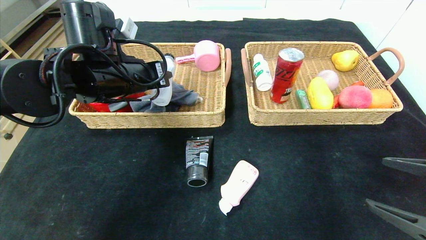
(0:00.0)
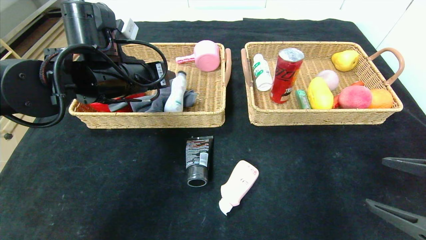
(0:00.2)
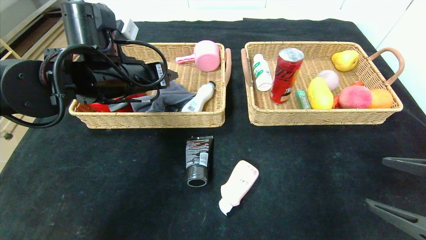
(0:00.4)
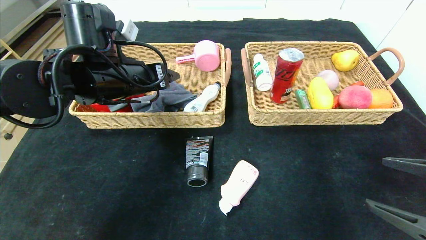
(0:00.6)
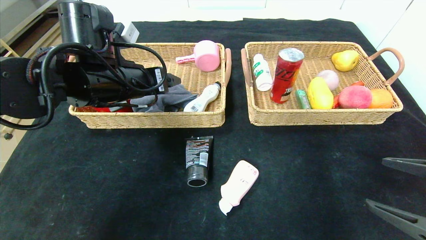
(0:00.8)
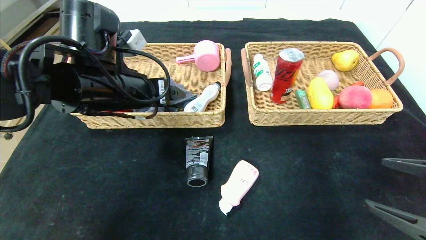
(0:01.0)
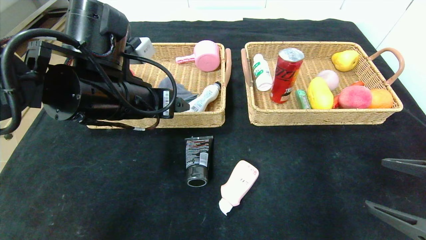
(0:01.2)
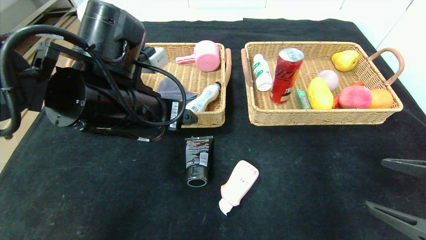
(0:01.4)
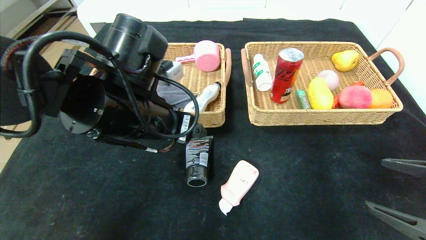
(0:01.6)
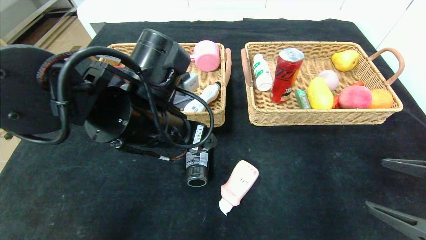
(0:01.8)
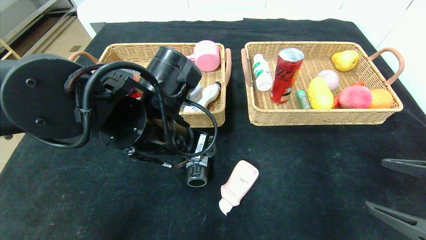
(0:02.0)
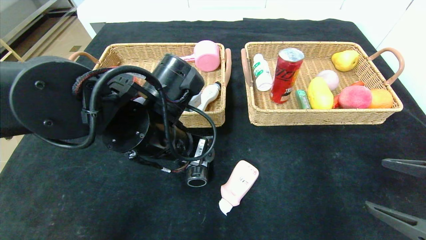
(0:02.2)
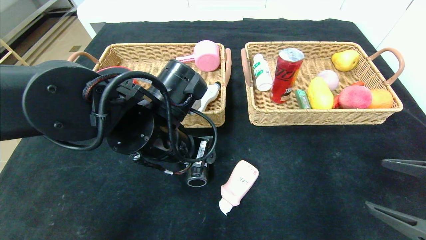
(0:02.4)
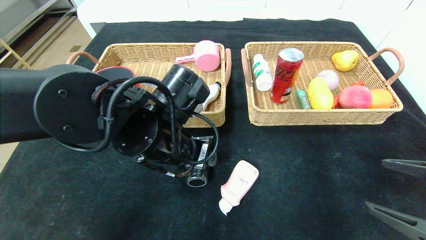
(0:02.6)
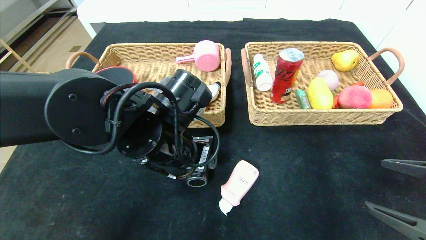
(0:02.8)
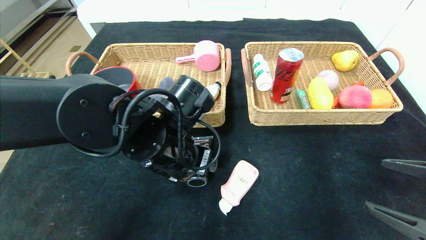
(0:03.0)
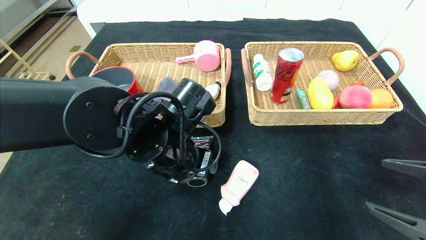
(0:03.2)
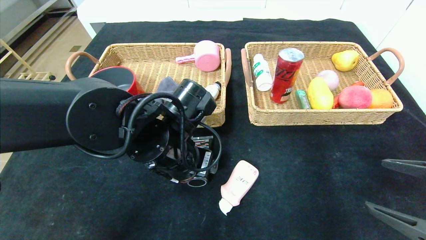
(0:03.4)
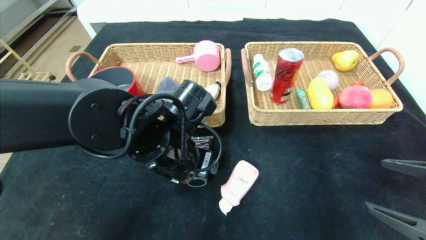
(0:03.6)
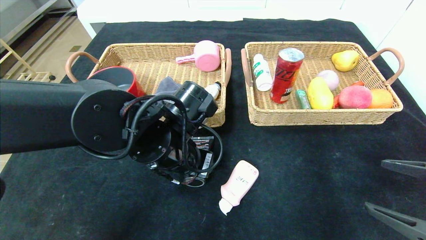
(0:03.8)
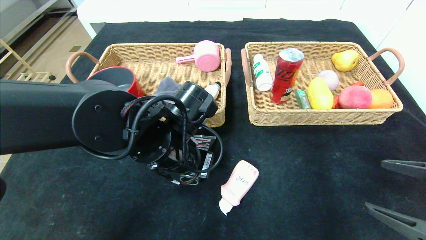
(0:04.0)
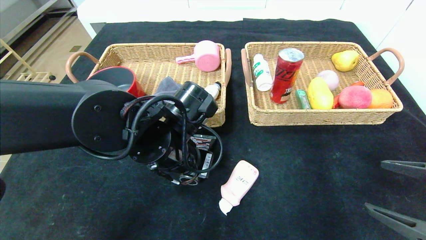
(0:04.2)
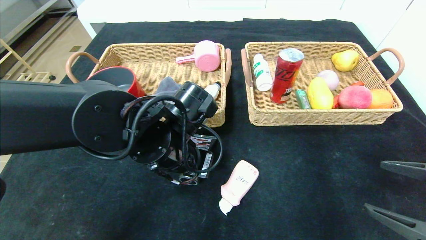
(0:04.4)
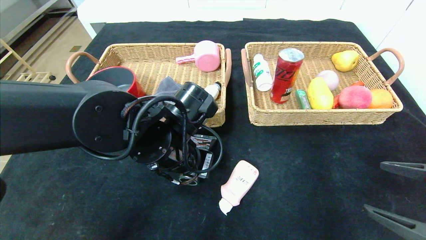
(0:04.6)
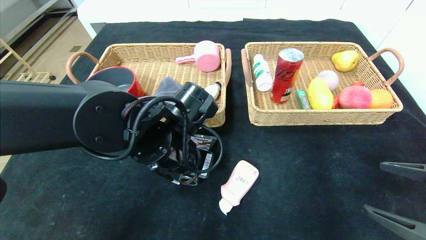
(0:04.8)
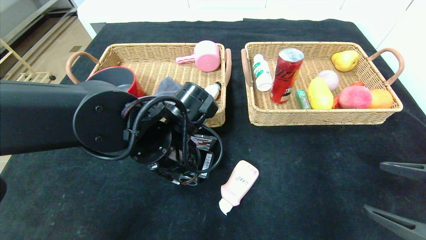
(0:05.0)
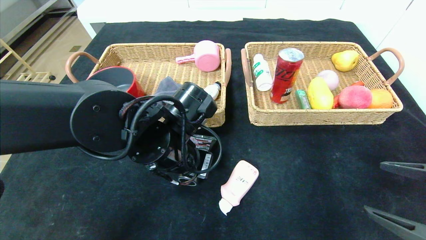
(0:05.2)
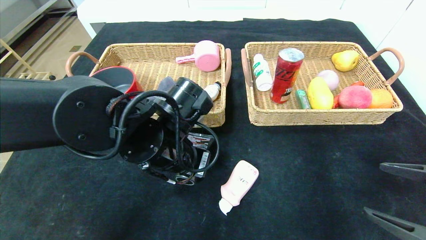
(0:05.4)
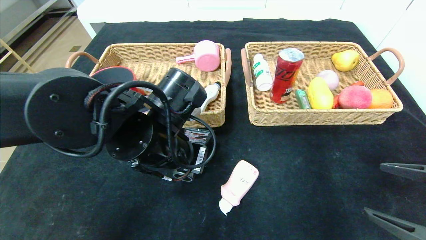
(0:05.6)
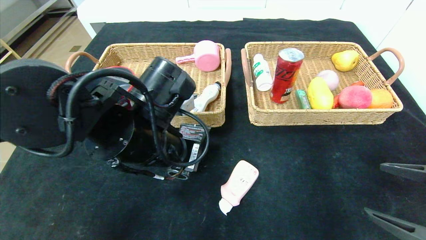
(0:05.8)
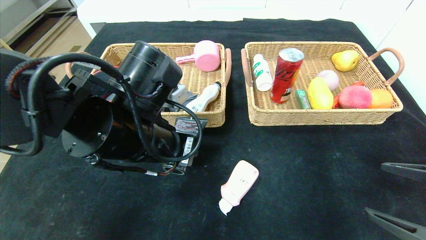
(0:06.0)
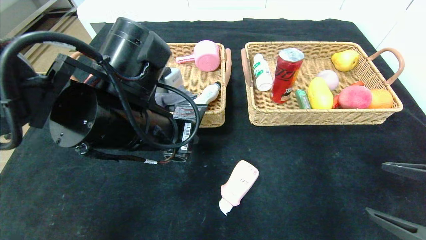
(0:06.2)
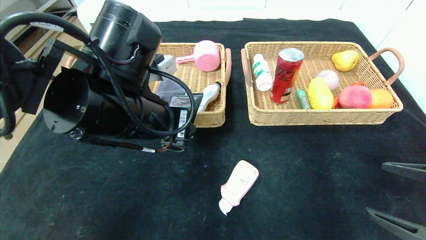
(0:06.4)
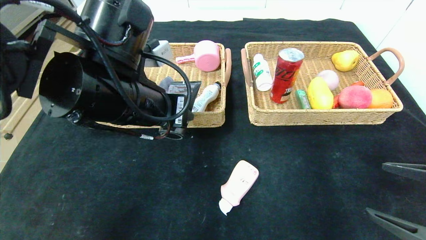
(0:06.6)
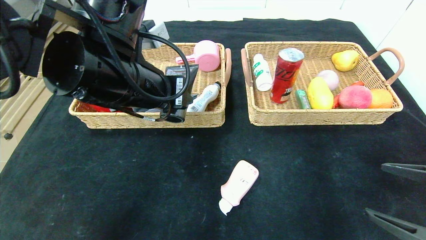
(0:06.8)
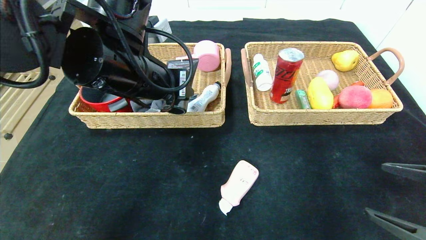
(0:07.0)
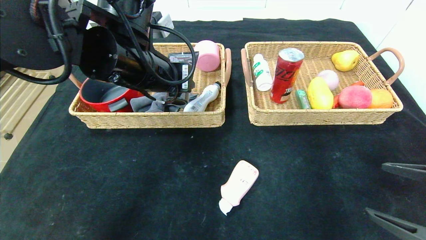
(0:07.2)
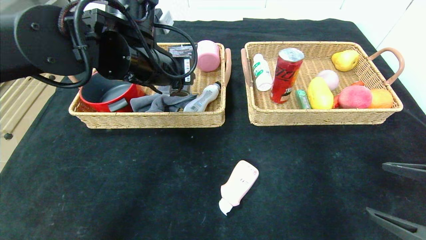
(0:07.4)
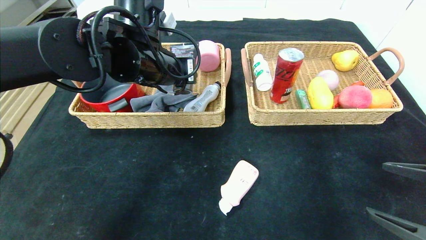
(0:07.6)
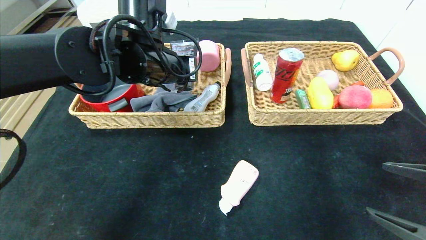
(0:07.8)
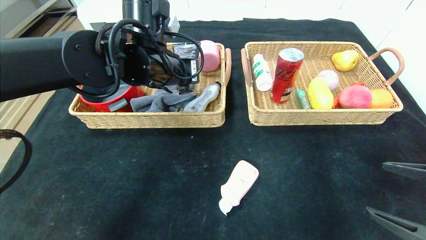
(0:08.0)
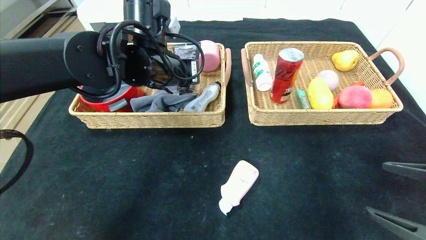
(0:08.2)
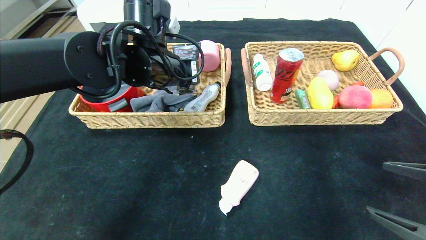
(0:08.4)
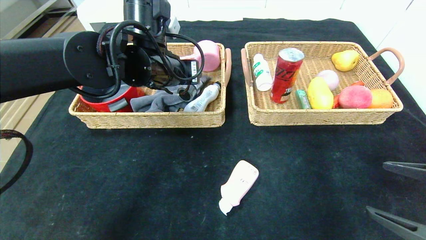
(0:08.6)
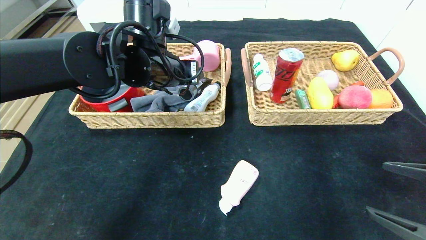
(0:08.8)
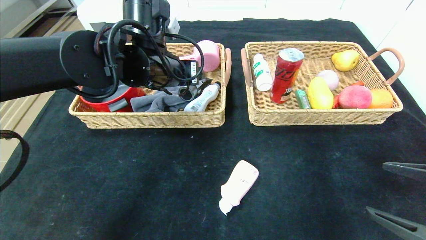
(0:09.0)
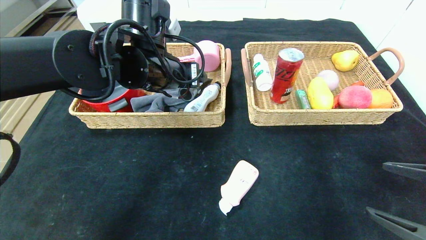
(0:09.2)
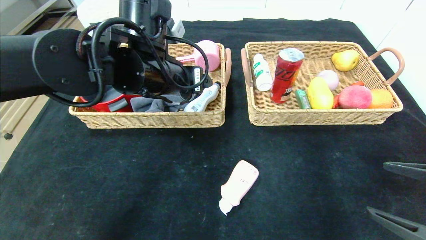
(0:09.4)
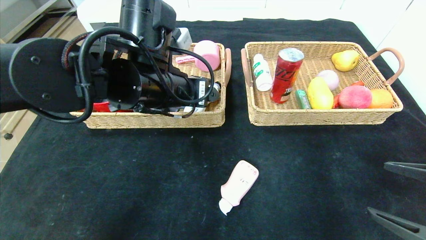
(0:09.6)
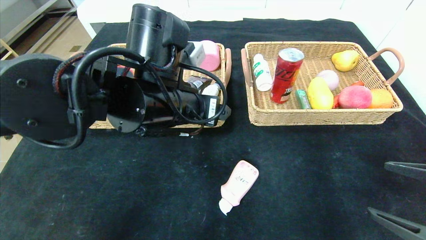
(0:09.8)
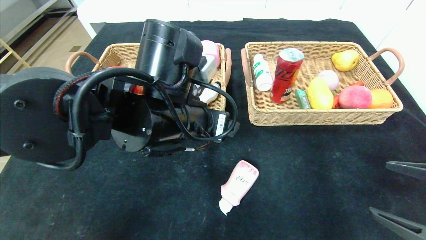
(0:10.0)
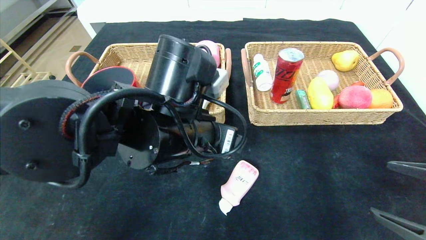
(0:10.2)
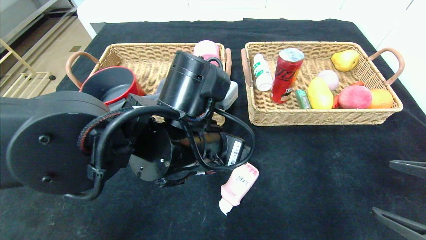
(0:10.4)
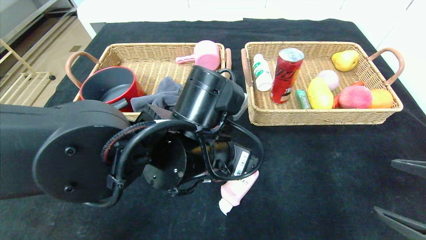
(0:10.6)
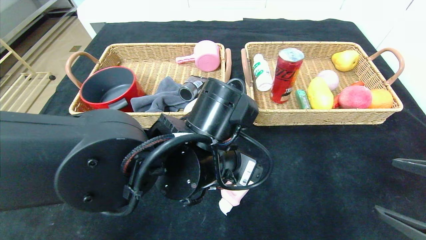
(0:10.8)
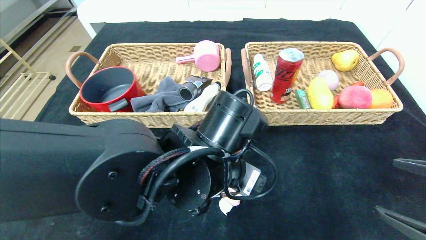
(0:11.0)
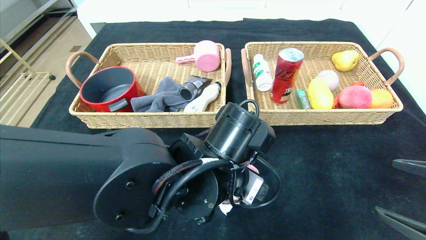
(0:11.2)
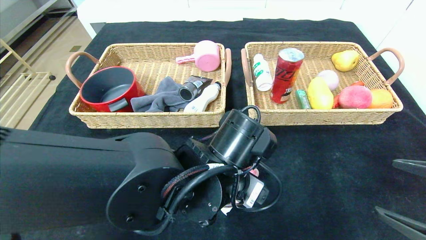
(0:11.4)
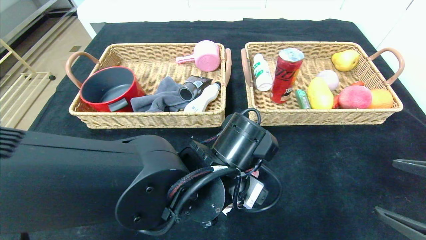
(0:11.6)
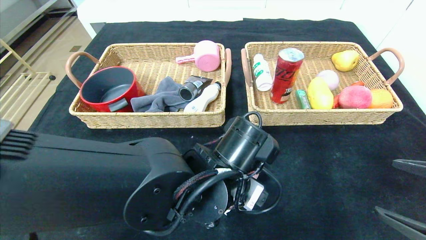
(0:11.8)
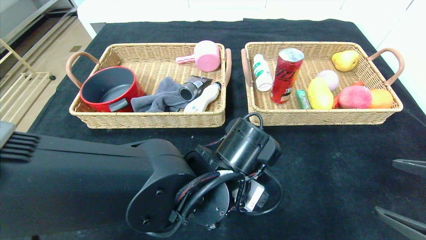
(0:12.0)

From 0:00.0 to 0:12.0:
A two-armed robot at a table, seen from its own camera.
Step, from 0:00.6 to 0:08.8: Grasp the soft cleanser and put it in the left basket.
From 0:00.0 to 0:01.6: The left gripper goes about 10 cm backward and to the right, and opens its fingers.
From 0:01.6 to 0:03.0: The left gripper goes approximately 5 cm downward.
From 0:03.0 to 0:04.4: The left gripper closes up.
From 0:04.4 to 0:06.0: The left gripper moves approximately 5 cm.
From 0:06.0 to 0:07.6: The left gripper travels forward and upward by approximately 15 cm.
From 0:07.6 to 0:09.0: The left gripper opens up.
From 0:09.0 to 0:10.4: The left gripper heads backward, to the right and downward, covering approximately 15 cm.
From 0:10.4 to 0:12.0: The left gripper moves downward, approximately 5 cm.

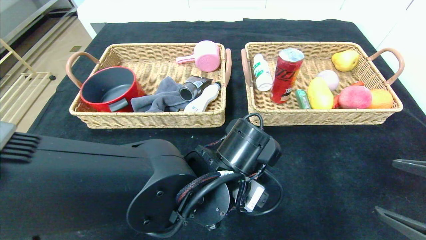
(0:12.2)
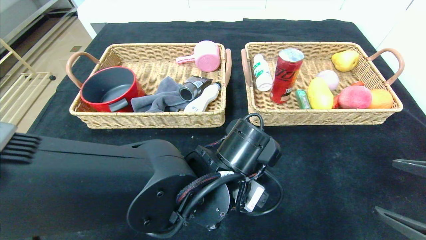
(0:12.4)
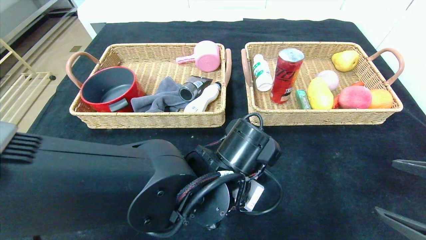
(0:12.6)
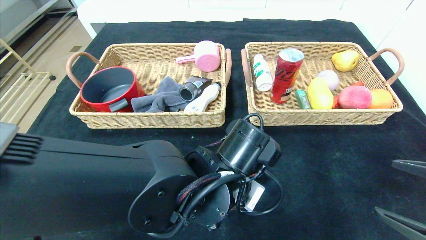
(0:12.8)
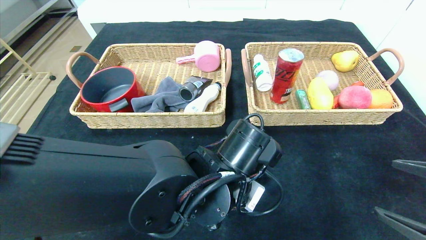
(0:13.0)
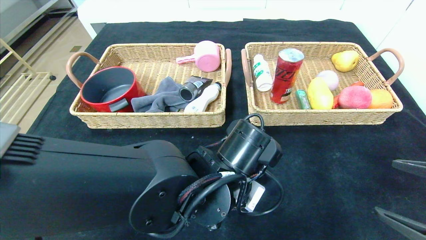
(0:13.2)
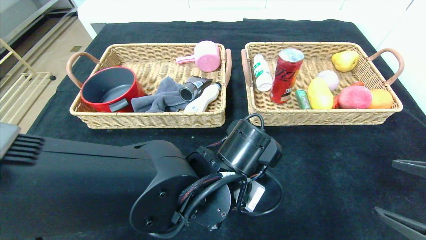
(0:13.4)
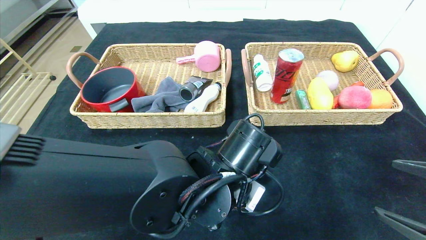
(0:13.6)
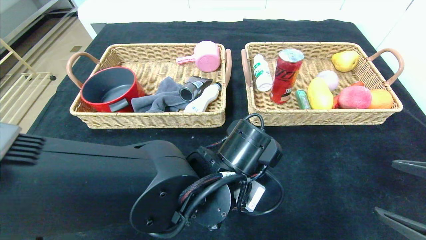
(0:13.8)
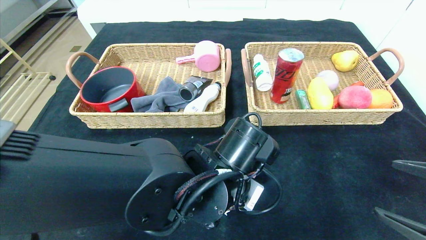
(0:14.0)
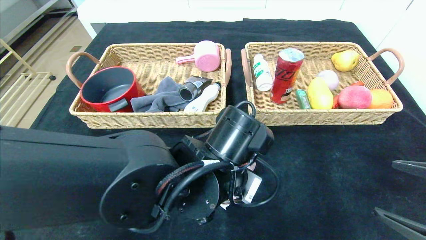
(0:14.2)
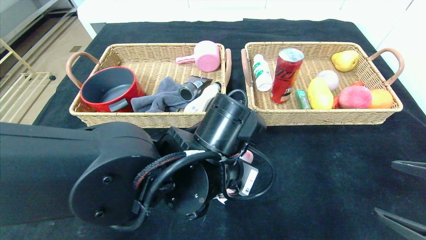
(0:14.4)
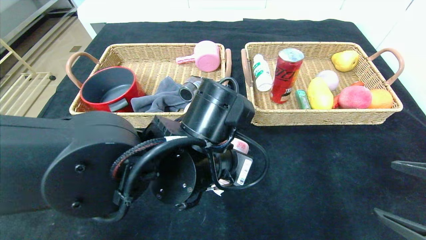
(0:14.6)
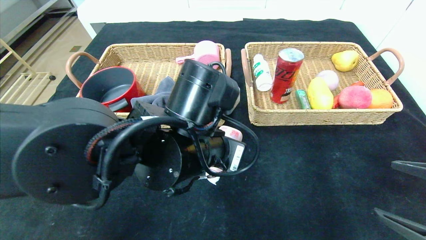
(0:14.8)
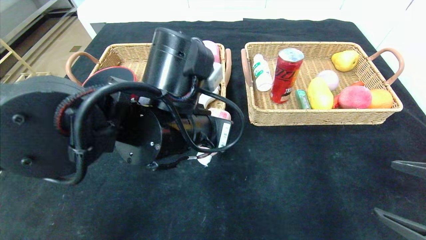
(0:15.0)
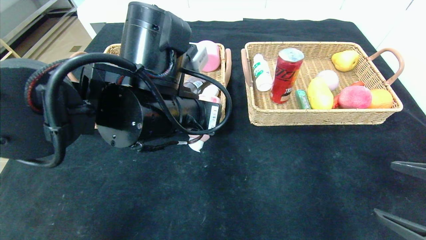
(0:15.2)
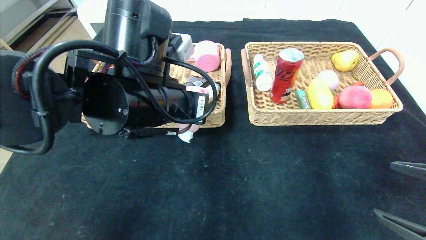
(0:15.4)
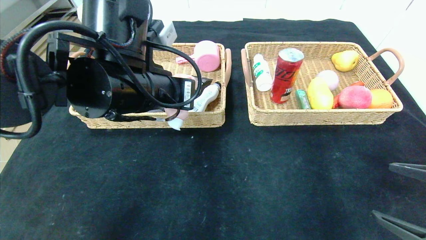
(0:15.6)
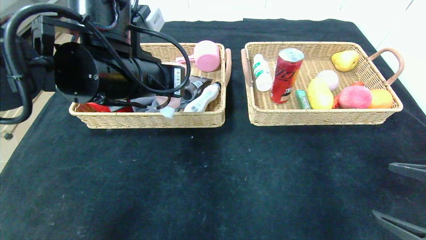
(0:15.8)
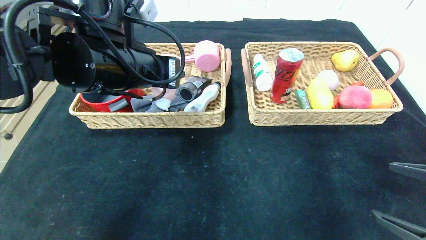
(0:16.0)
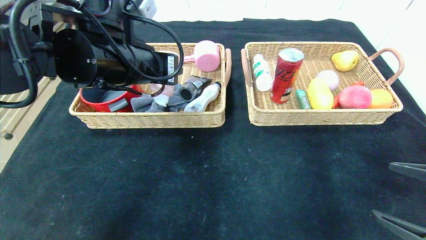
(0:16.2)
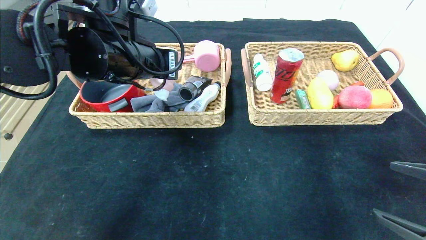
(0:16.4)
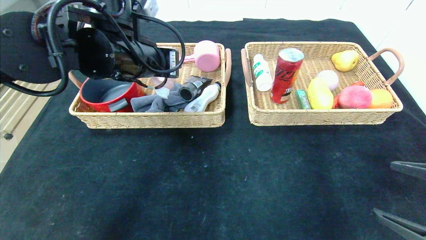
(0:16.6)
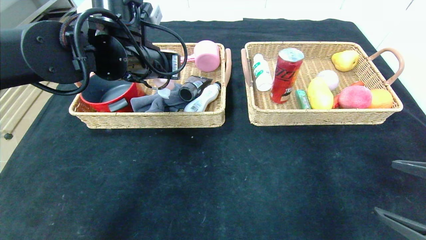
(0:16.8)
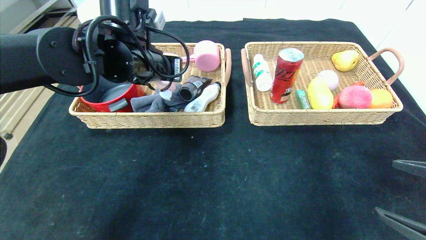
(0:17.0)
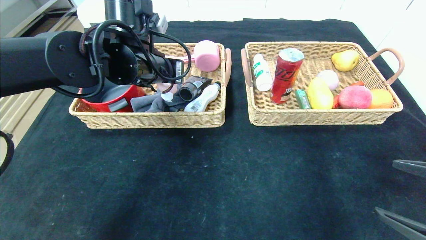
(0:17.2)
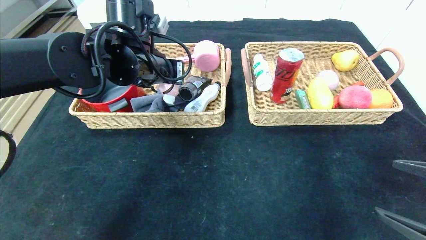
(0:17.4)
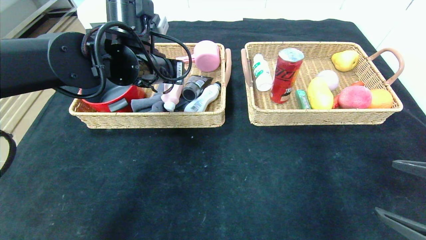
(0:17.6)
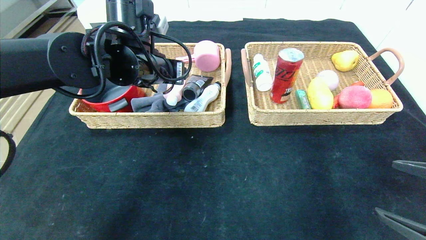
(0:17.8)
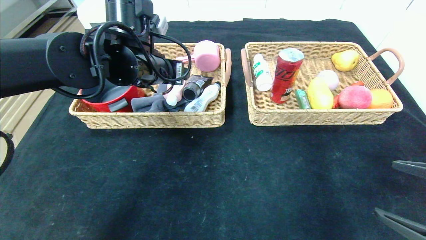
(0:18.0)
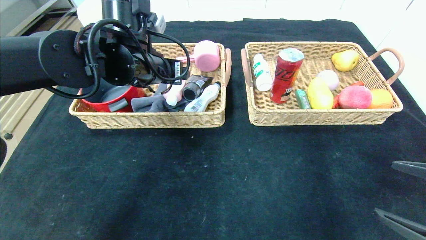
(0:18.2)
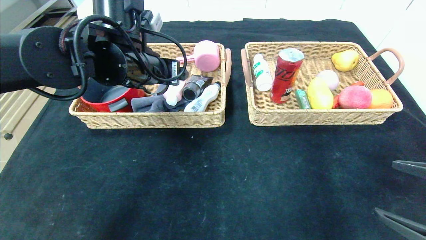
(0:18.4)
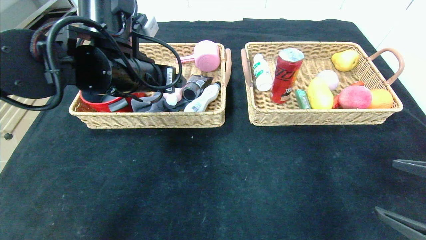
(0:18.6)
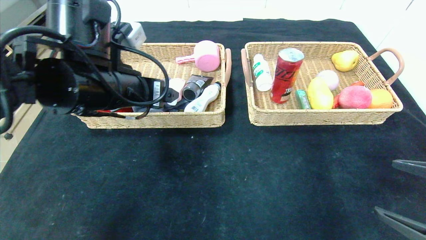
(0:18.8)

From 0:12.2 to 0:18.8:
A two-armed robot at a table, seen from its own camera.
Step, from 0:12.2 to 0:17.8: Grasp the detergent and put it in the left basket.
From 0:12.2 to 0:13.8: The left gripper closes up.
From 0:13.8 to 0:15.4: The left gripper travels upward and to the left by roughly 15 cm.
From 0:15.4 to 0:17.2: The left gripper travels forward by some 10 cm.
From 0:17.2 to 0:18.8: The left gripper moves backward, roughly 10 cm, and opens.
